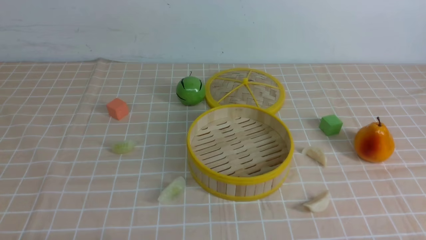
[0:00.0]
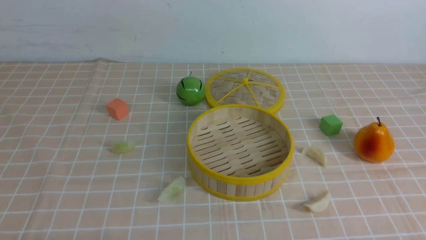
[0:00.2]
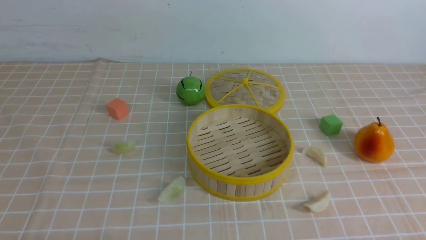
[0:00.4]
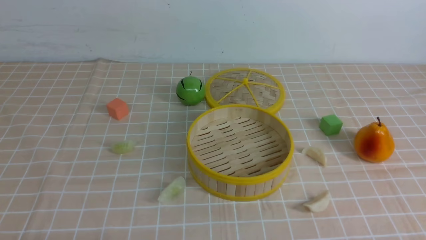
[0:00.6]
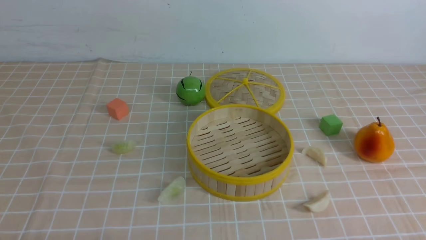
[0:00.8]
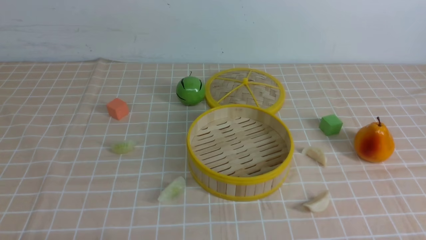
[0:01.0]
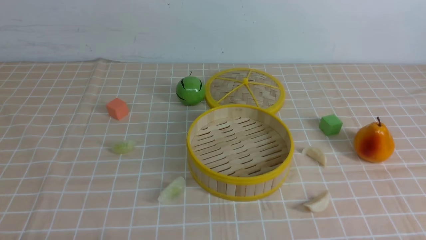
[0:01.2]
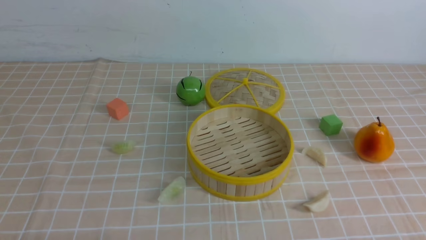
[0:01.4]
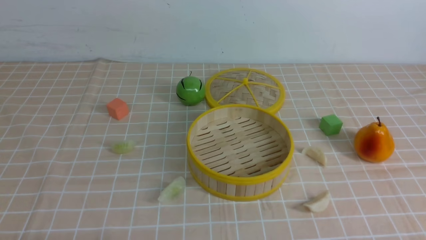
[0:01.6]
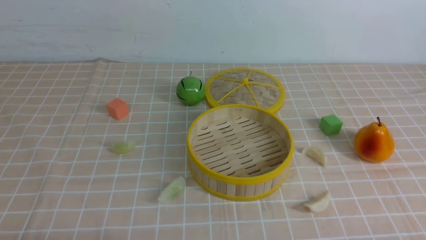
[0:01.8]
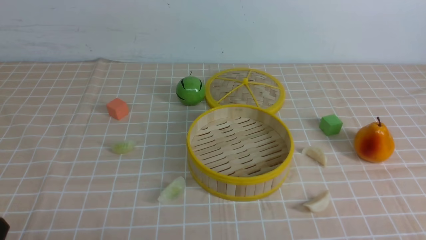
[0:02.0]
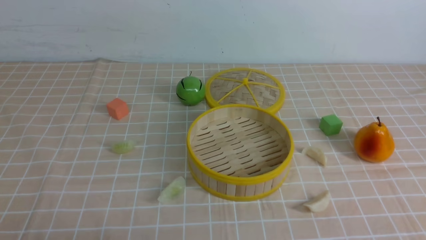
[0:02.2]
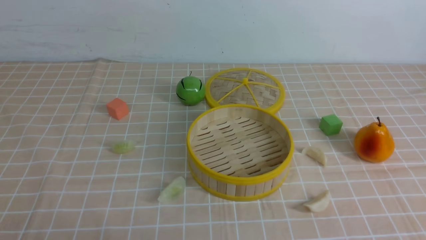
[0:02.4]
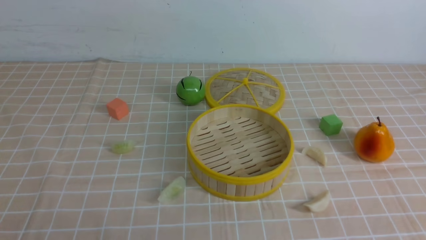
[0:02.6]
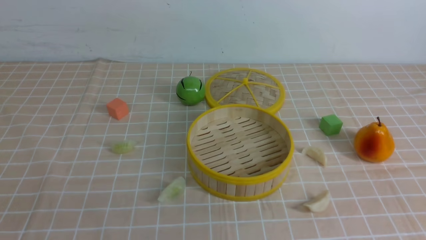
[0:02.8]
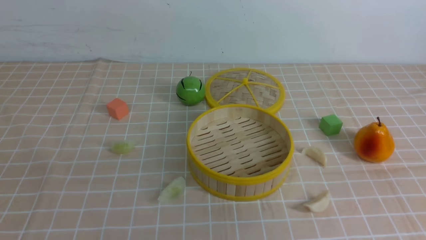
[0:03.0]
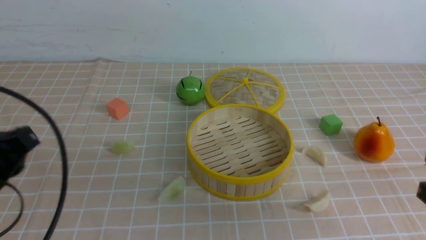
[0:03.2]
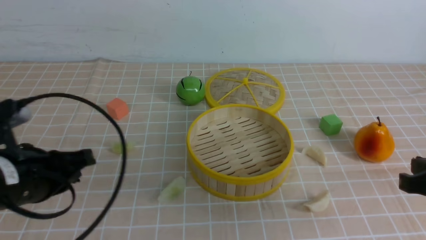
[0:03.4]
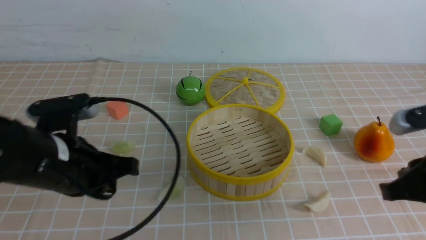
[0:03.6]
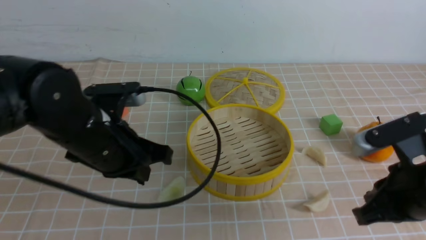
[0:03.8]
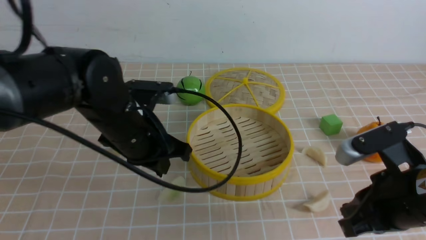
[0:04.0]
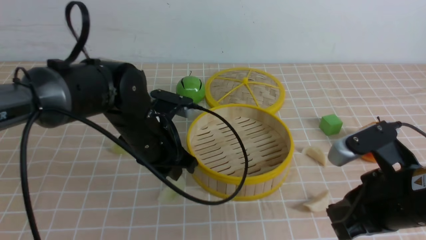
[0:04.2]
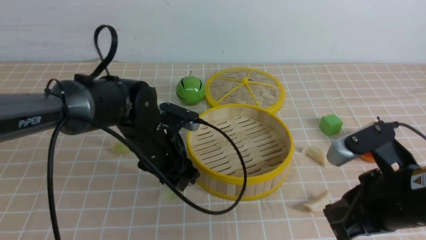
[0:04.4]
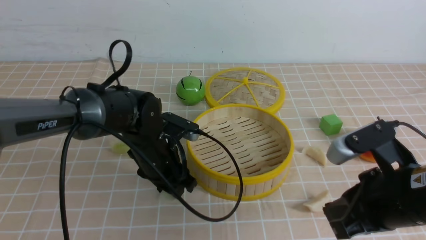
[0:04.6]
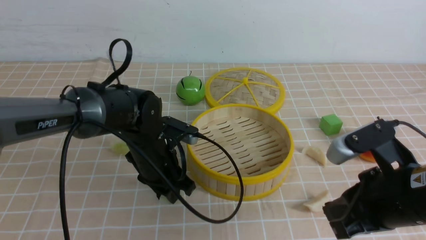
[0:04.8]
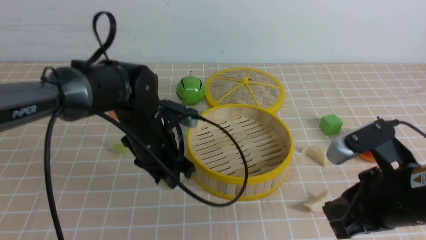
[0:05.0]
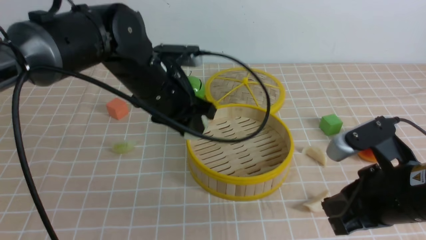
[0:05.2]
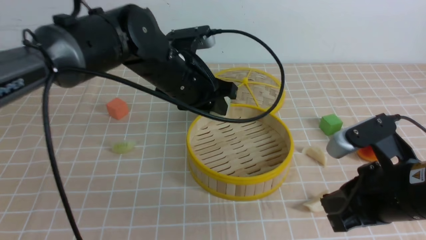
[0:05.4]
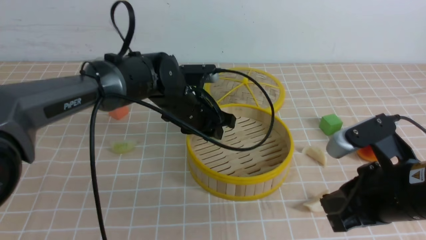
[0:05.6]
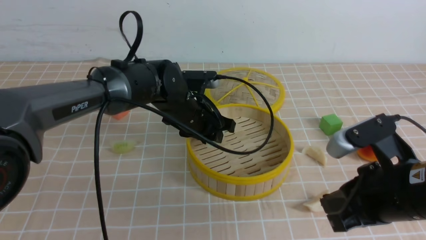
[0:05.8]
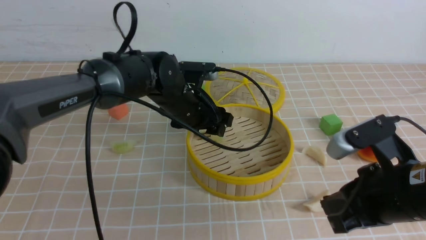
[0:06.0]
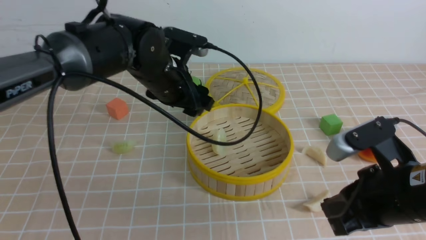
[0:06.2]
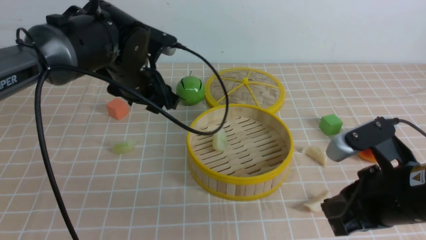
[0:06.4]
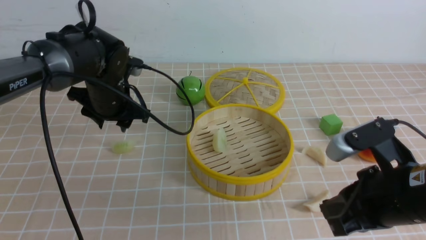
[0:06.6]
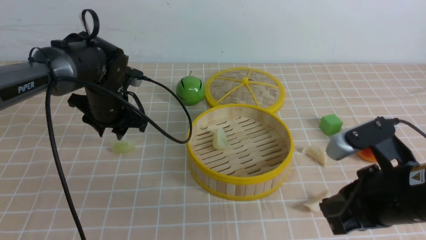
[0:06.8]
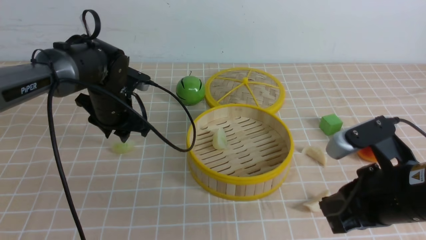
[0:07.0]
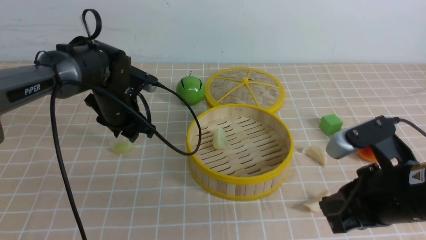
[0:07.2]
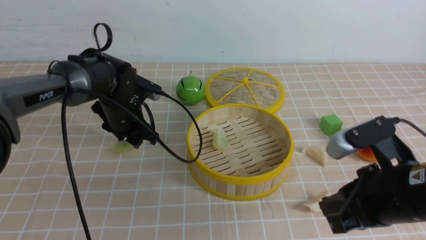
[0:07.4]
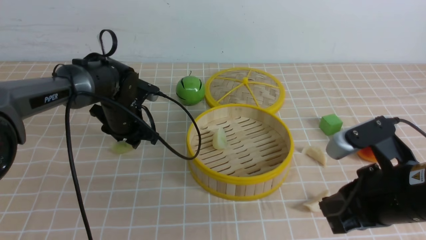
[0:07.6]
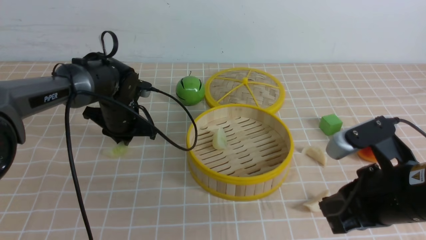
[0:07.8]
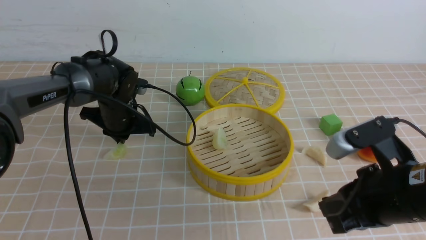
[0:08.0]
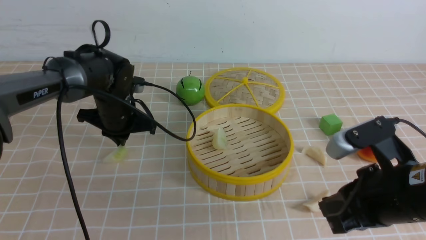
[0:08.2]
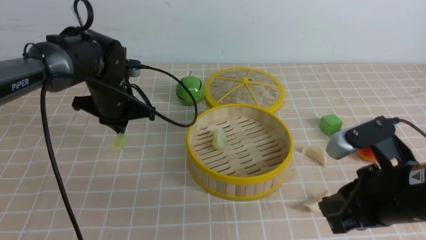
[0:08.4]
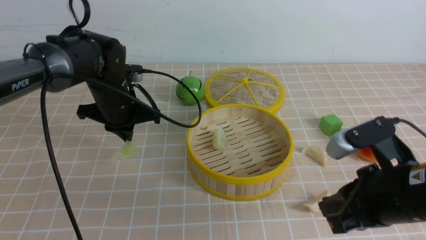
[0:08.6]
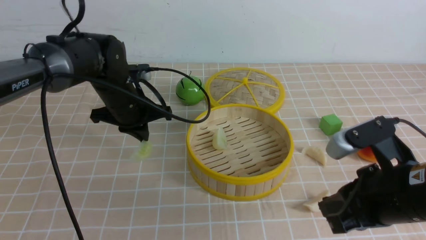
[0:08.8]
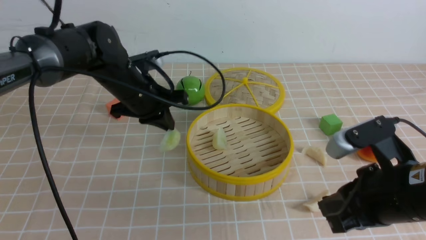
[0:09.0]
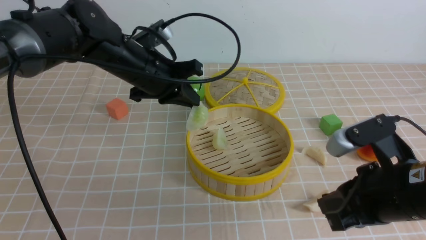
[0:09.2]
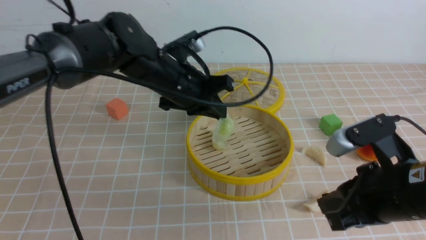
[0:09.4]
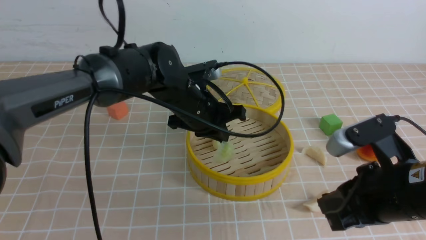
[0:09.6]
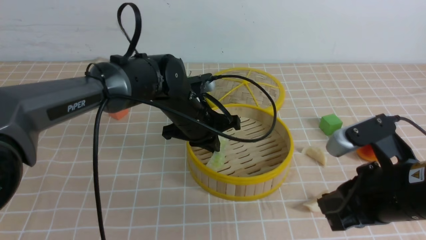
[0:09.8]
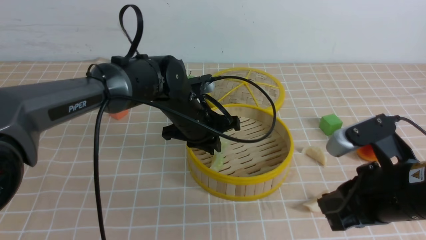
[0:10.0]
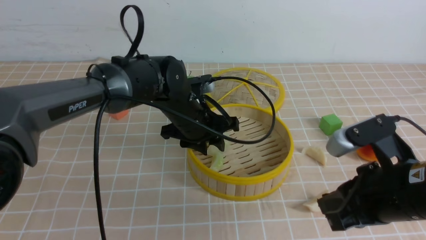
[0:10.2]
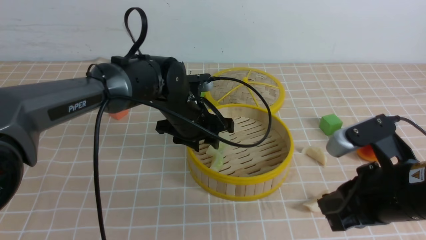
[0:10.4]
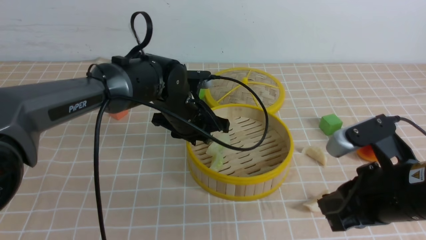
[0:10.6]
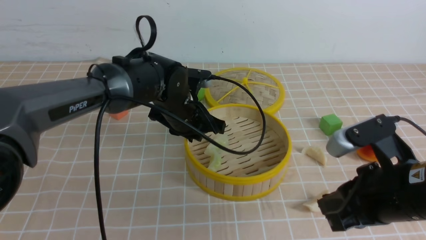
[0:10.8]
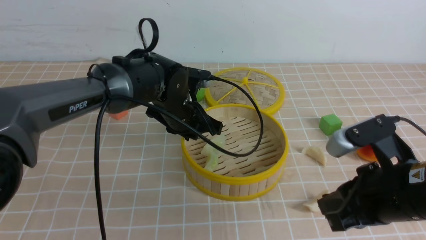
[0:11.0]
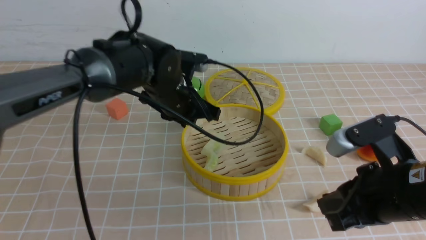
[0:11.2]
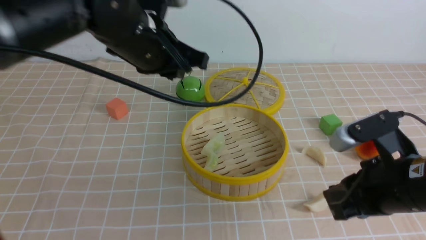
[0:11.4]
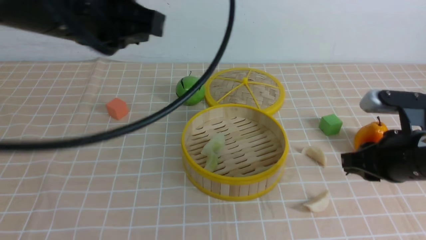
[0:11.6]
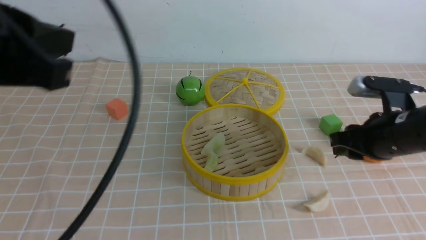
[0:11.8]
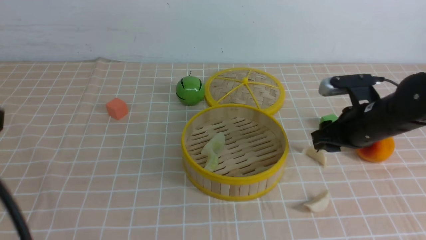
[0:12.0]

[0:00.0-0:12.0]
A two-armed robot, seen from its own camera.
Task of the whole recording: put the dumplings into the steamer on the table with the brown tablecloth.
Step, 0:00.0 to 0:04.8: use the left arm to grab a dumpling.
Step, 0:05.0 to 0:06.0: use the left arm to put the dumpling into the steamer.
Step, 0:06.2 to 0:07.8: use the left arm to grab a dumpling.
Step, 0:08.0 to 0:10.2: use the left arm to put the dumpling into the steamer.
0:03.0 to 0:04.4: The right gripper shifts approximately 10 cm to the left and forward; the left gripper heads forward, to the right and downward, covering some 30 cm, and opens its fingers.
0:04.4 to 0:06.0: The left gripper travels forward and upward by roughly 10 cm.
0:06.0 to 0:07.6: The left gripper moves to the left and downward, roughly 15 cm, and closes.
0:07.6 to 0:09.0: The left gripper goes roughly 10 cm upward, and closes up.
0:09.0 to 0:10.4: The left gripper moves to the right, approximately 10 cm, and opens up.
0:10.4 to 0:12.0: The right gripper shifts roughly 15 cm forward, and opens its fingers. Meanwhile the left gripper heads backward, to the left and upward, covering some 40 cm, and closes.

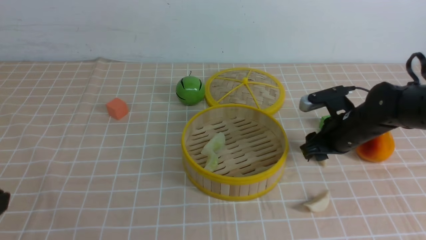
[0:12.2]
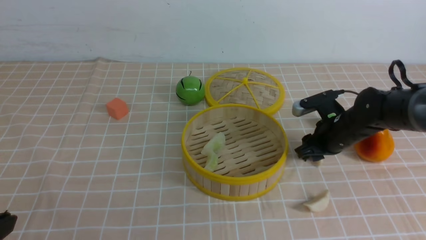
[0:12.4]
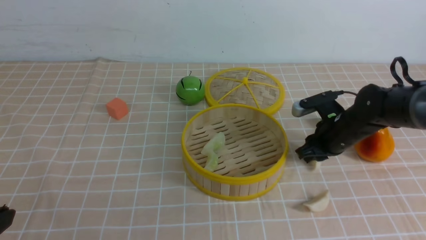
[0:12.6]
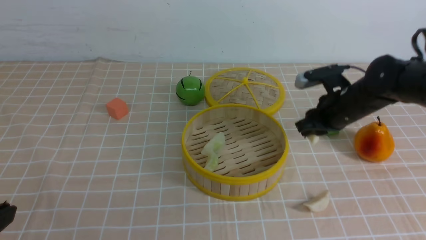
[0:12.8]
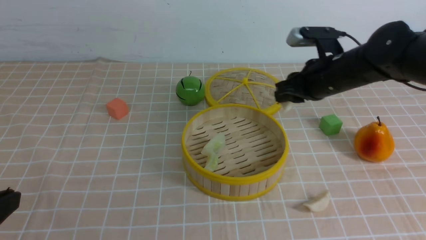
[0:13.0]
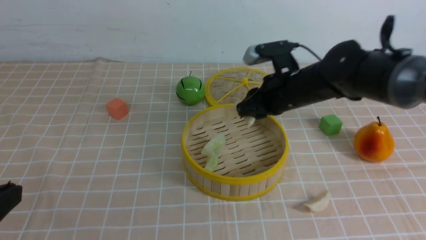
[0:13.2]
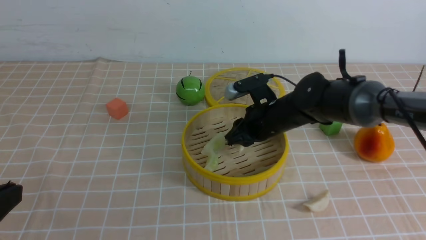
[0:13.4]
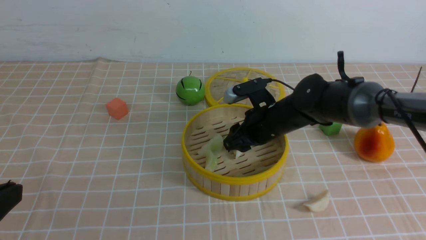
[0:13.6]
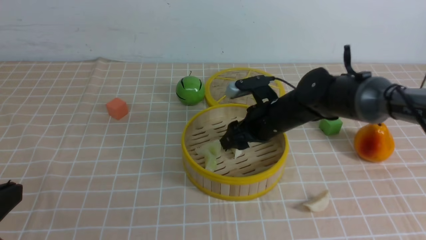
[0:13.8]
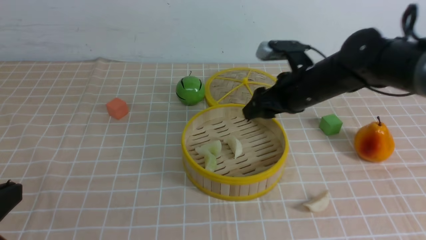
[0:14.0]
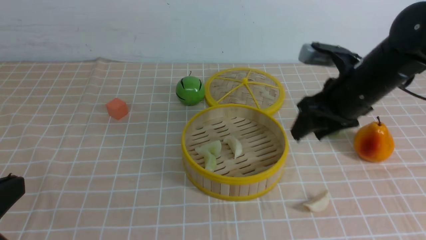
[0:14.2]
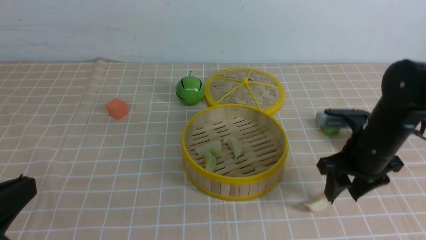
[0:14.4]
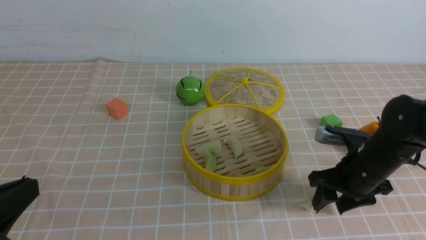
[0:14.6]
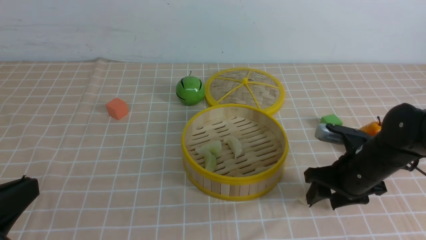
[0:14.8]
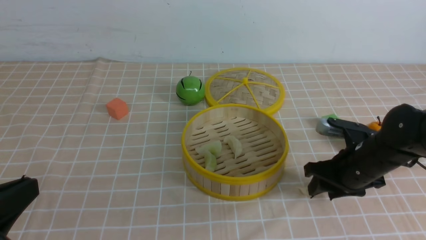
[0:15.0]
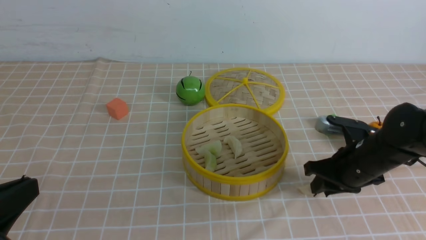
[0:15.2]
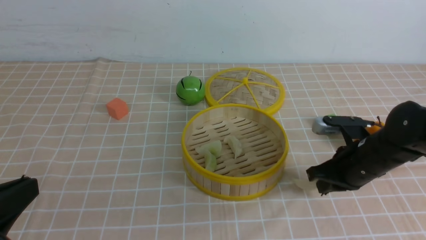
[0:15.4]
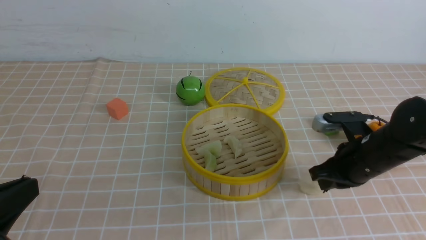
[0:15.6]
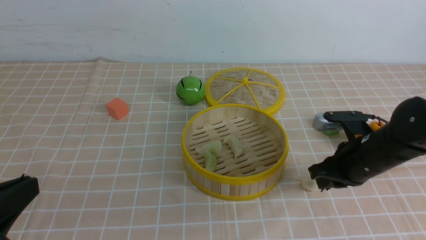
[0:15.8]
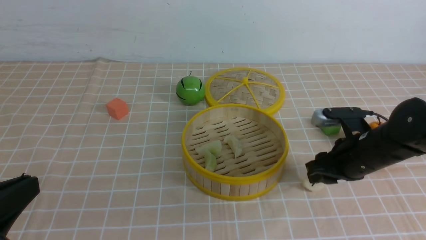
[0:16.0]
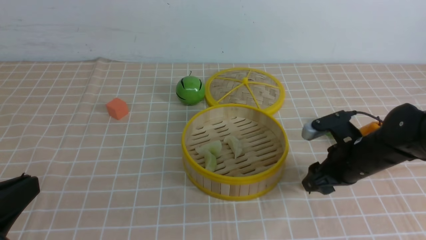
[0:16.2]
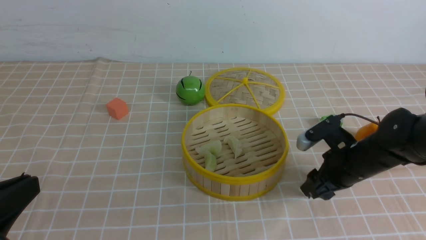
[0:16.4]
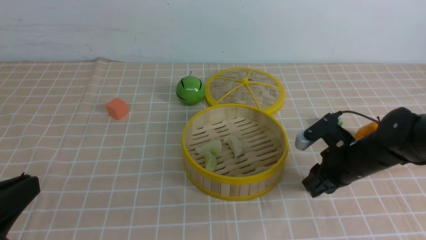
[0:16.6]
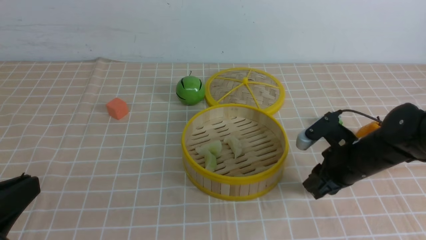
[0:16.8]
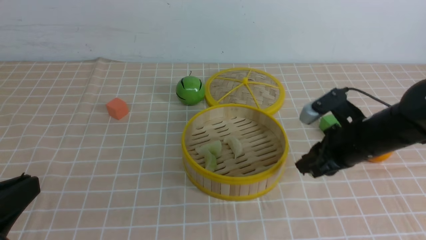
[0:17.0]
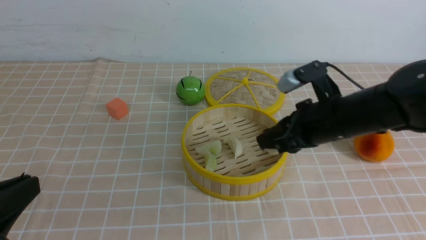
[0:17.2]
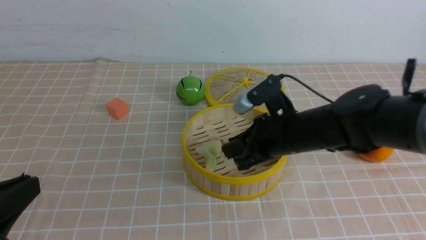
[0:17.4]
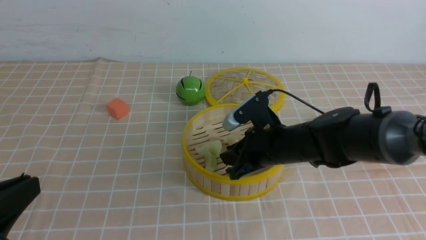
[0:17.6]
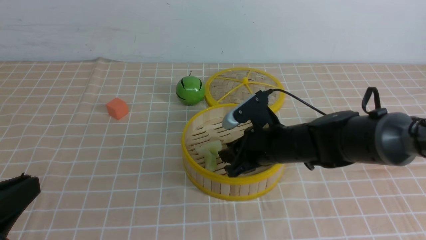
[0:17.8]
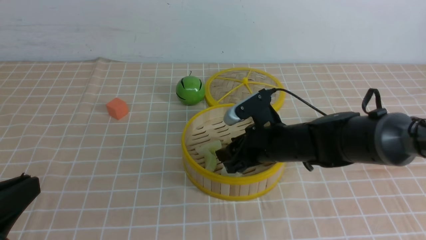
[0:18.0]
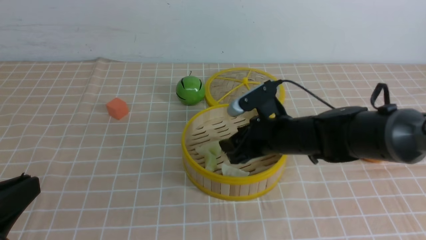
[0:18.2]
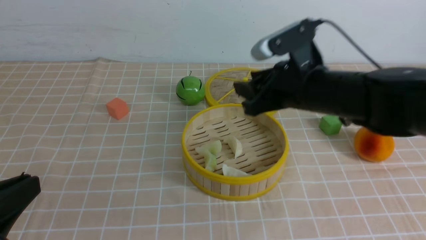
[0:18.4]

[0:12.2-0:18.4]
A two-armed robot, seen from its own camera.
Task of the whole recording: put the dumplings into the steamer on the table with the brown tablecloth.
Step, 0:12.6 to 0:14.0: use the right arm to put the dumpling into the steamer.
Step, 0:14.2 to 0:16.0: use the right arm to grab a dumpling.
Step, 0:16.4 to 0:18.2: use the right arm to put the dumpling into the steamer.
0:12.2 to 0:13.8: The right gripper heads to the left, covering some 10 cm, and closes, then reopens.
0:13.8 to 0:15.4: The right gripper travels to the right and backward by some 15 cm, and closes its fingers.
0:15.4 to 0:16.8: The right gripper opens and closes again.
0:16.8 to 0:18.4: The right gripper swings up and down, roughly 15 cm each way, with 2 reversals.
